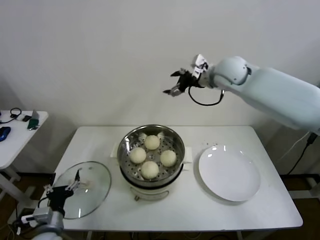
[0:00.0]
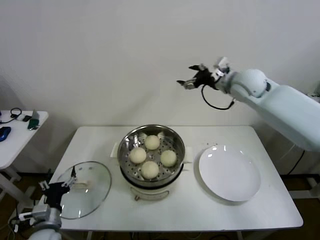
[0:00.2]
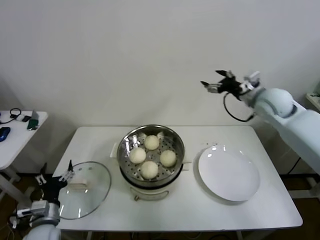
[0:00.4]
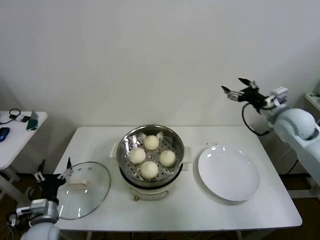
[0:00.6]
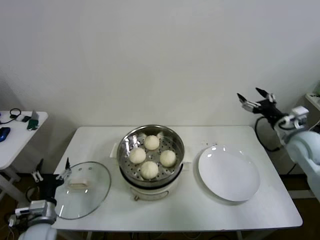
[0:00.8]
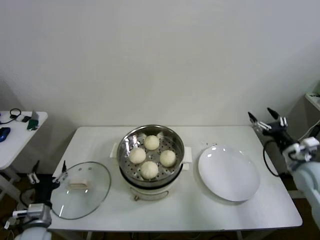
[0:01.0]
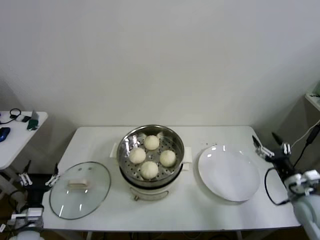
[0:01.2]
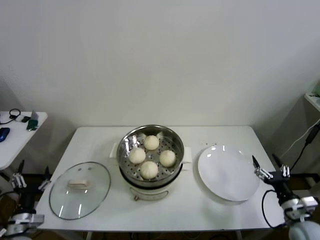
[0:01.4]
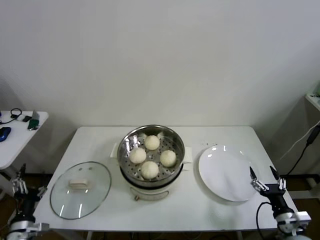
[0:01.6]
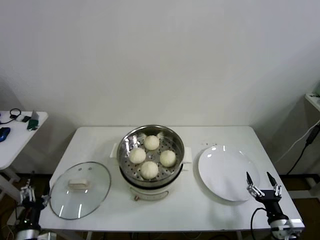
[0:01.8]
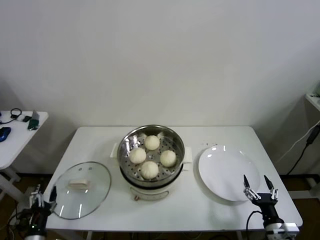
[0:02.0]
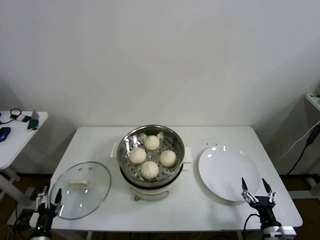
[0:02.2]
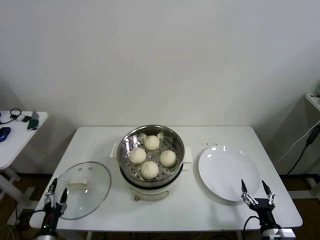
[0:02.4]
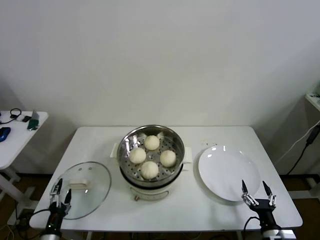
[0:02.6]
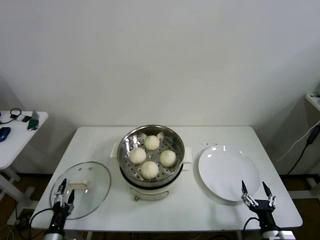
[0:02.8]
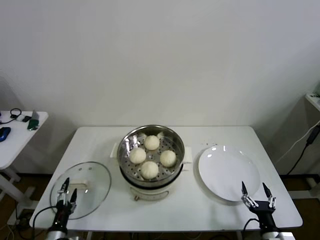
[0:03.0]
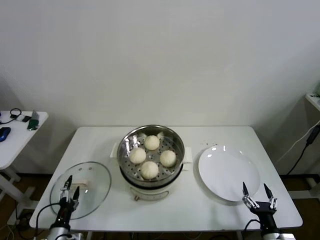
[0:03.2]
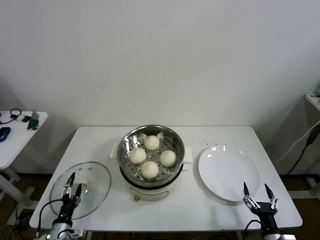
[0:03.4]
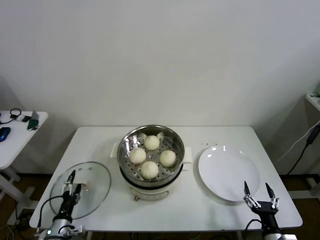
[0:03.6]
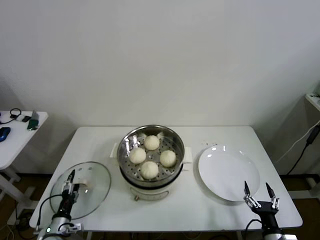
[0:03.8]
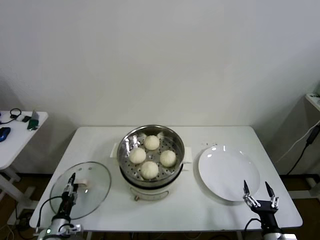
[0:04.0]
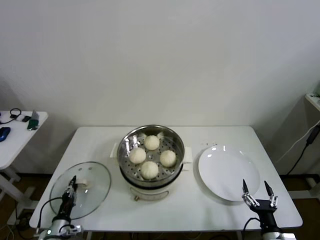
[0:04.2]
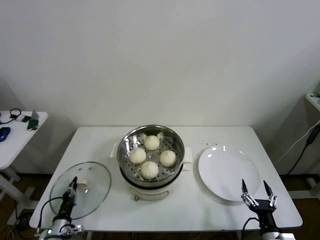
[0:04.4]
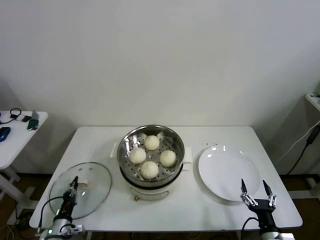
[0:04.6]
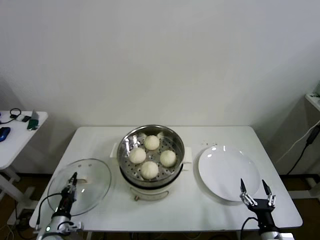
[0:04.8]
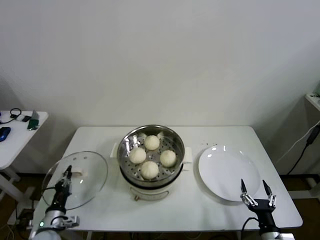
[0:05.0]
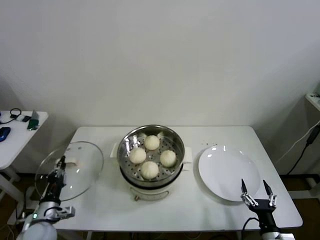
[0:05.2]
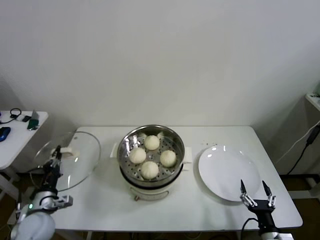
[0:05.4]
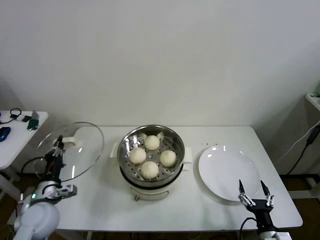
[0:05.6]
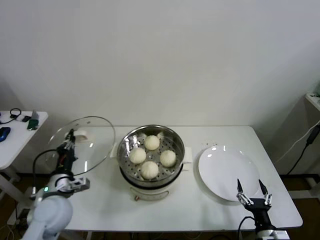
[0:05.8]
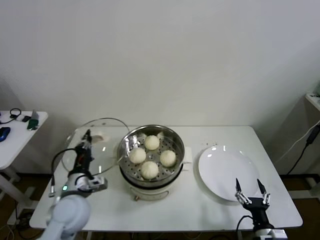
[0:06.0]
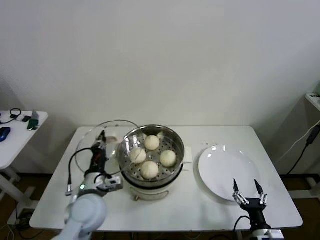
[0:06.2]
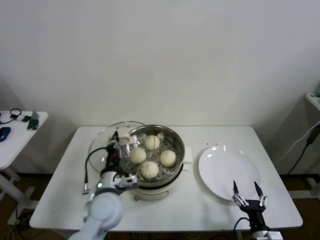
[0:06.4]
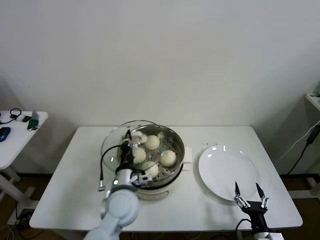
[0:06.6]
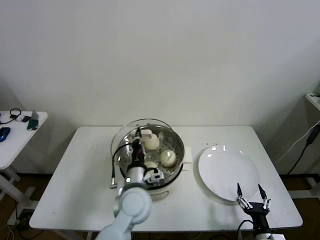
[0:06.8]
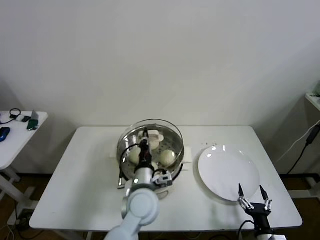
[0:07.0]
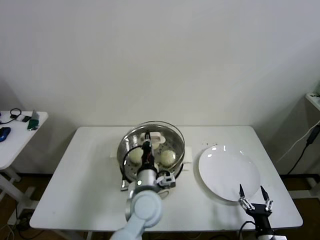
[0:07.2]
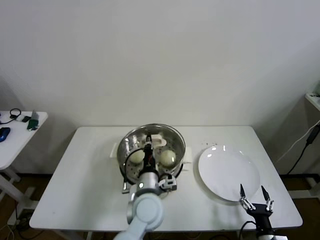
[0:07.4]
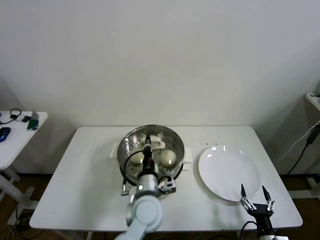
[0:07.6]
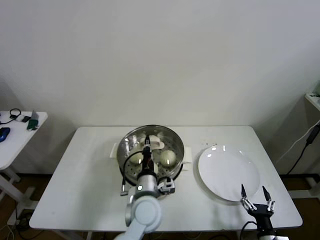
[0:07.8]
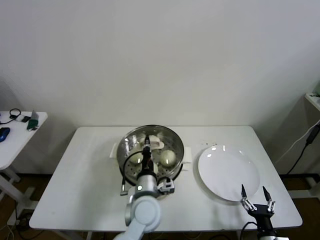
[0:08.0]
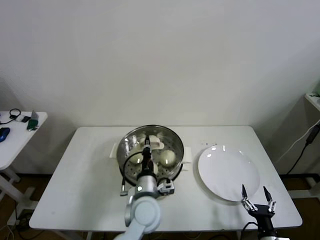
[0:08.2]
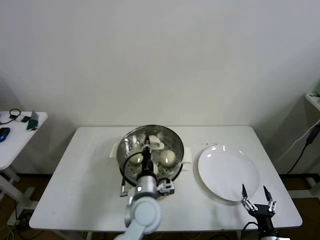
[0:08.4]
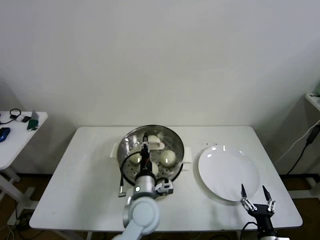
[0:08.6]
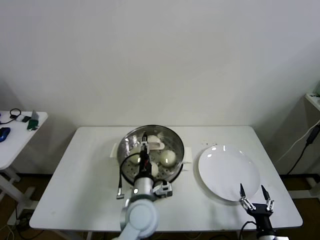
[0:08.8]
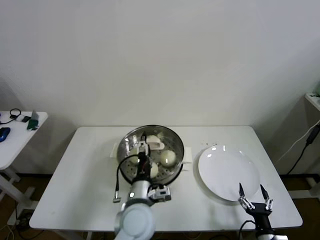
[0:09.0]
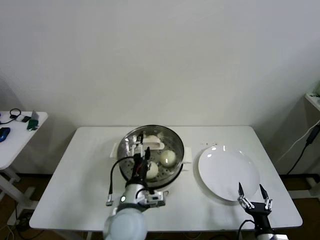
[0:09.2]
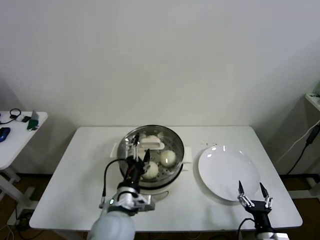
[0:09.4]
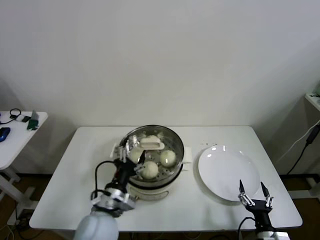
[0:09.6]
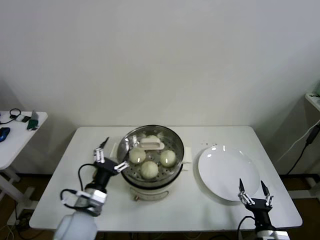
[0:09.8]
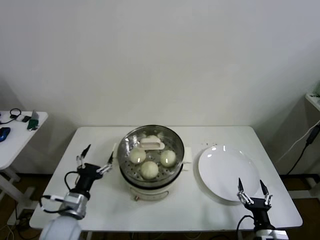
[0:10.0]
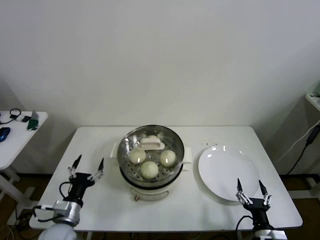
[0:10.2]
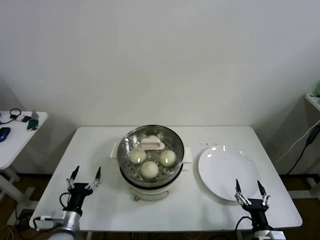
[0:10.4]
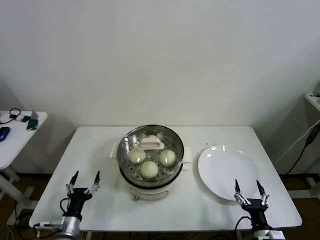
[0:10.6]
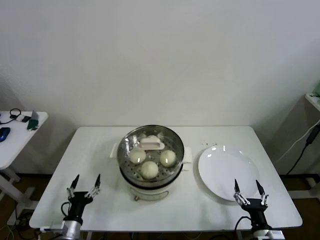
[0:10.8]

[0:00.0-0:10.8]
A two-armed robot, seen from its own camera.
Step, 0:00.0 to 0:04.4: Grasp the pot lid with left gripper.
Step, 0:04.6 to 0:07.8: Place the pot lid on the steamer with left gripper.
0:00.0 to 0:01.6: The right gripper heads downward, backward and to the right, covering about 60 cm, while the left gripper goes roughly 10 cm to the left.
0:01.6 to 0:03.0: The right gripper is displaced to the left by approximately 5 cm. Meanwhile the left gripper shifts about 10 cm downward and to the right.
0:03.0 to 0:04.6: The left gripper ends up approximately 5 cm from where it was, and closes up.
0:04.6 to 0:06.2: The left gripper moves upward and to the right, about 30 cm.
0:06.2 to 0:07.8: The left gripper is displaced to the right by approximately 15 cm.
0:07.8 to 0:09.2: The left gripper shifts by some 5 cm, and opens up.
0:09.2 to 0:10.8: The left gripper goes roughly 30 cm to the left and downward.
